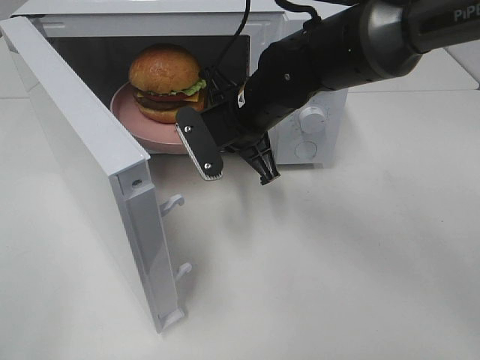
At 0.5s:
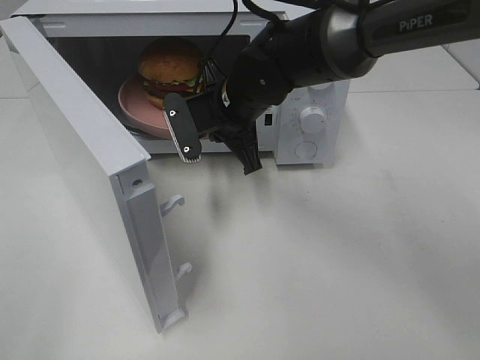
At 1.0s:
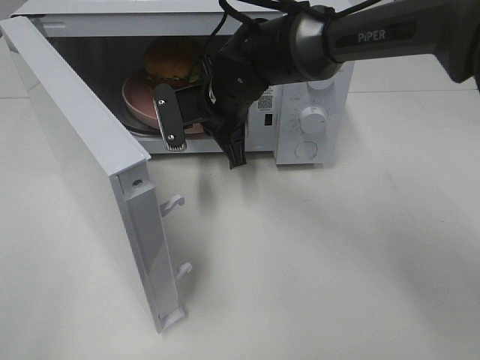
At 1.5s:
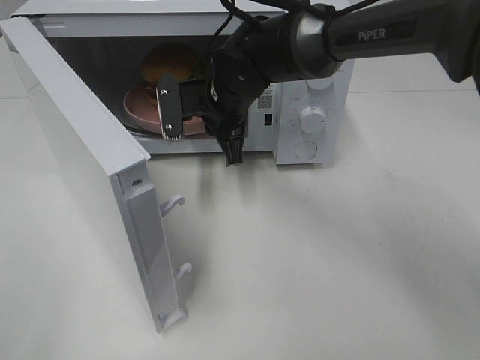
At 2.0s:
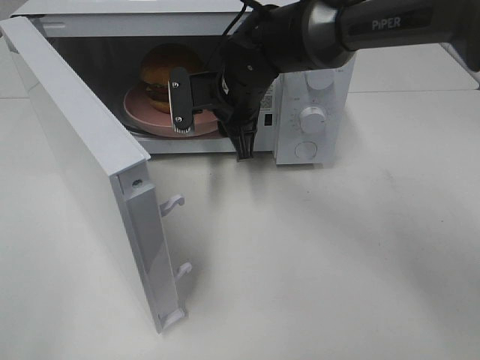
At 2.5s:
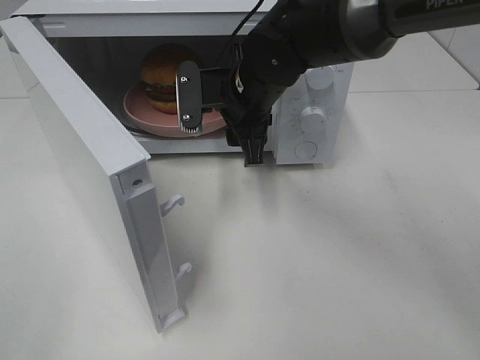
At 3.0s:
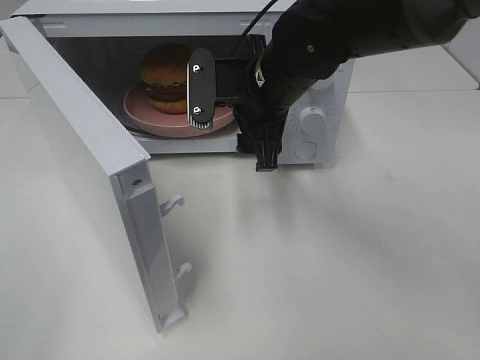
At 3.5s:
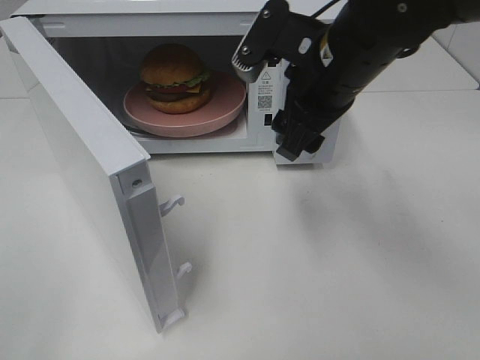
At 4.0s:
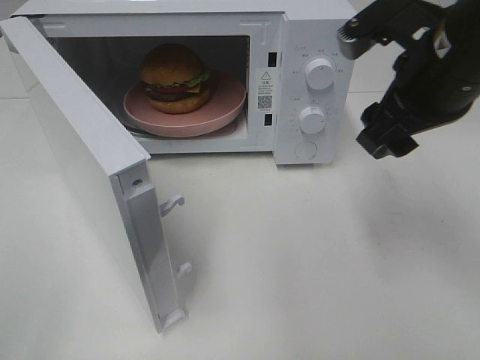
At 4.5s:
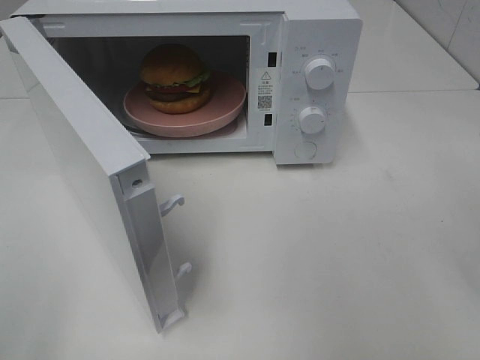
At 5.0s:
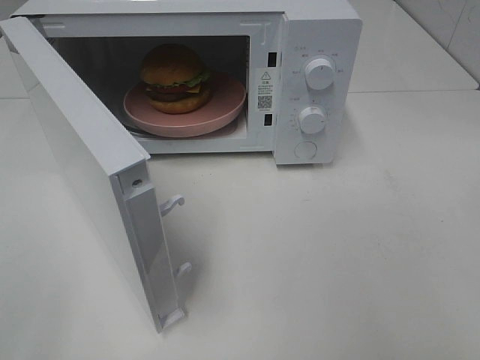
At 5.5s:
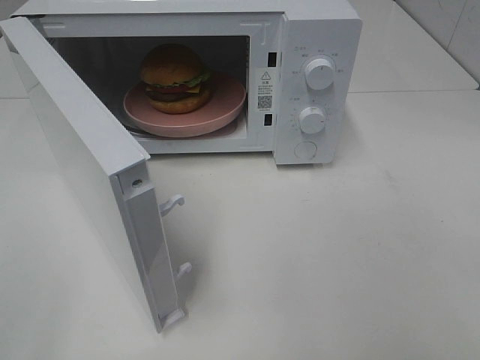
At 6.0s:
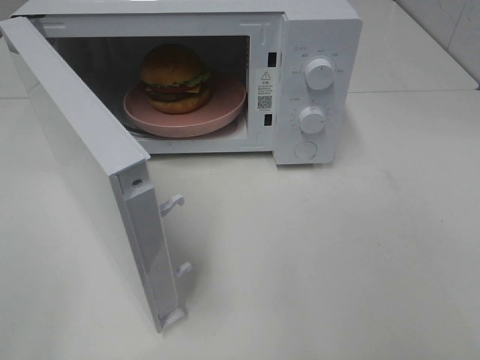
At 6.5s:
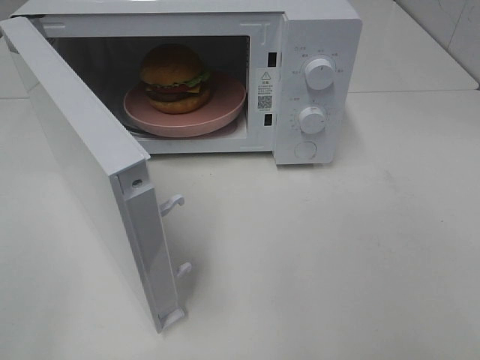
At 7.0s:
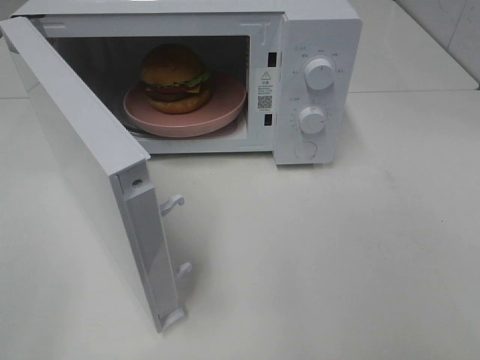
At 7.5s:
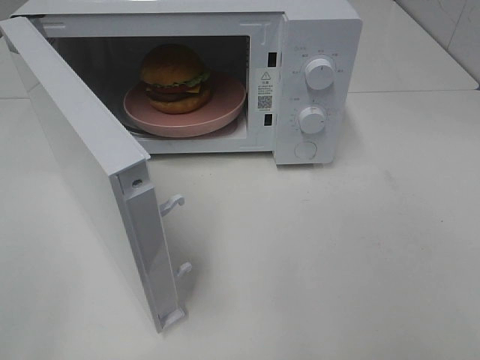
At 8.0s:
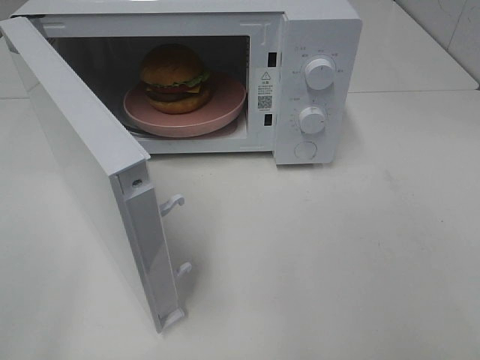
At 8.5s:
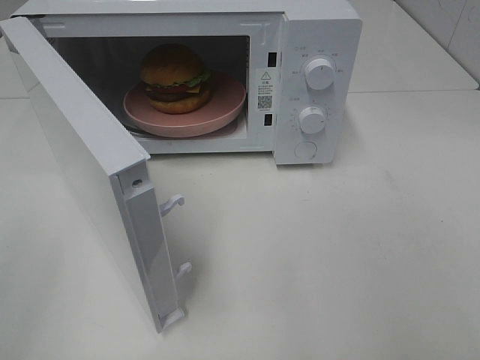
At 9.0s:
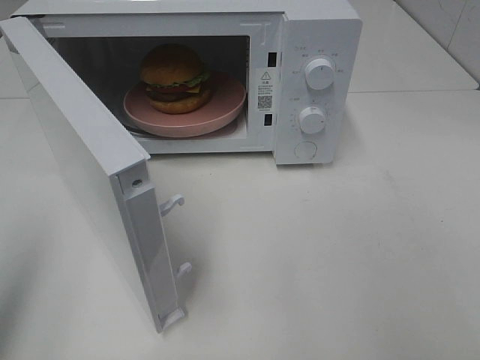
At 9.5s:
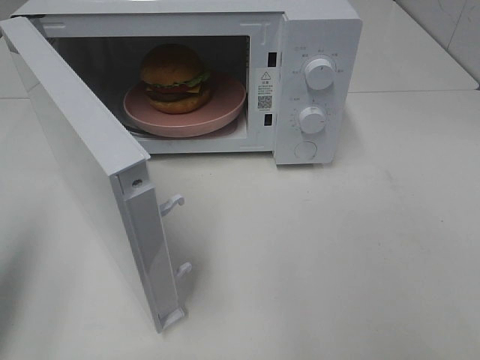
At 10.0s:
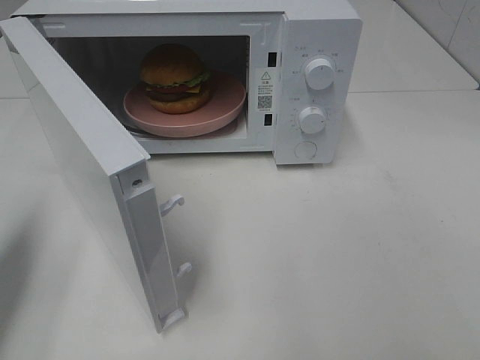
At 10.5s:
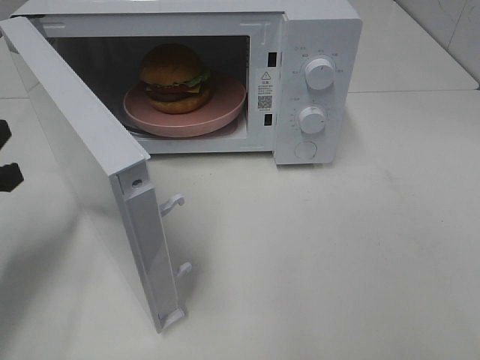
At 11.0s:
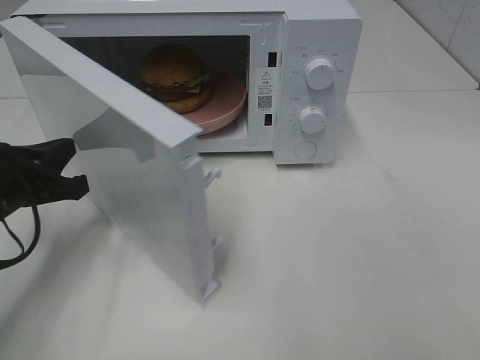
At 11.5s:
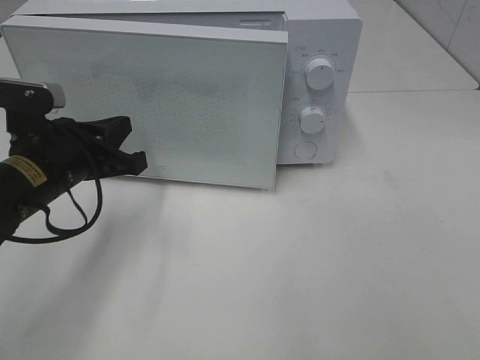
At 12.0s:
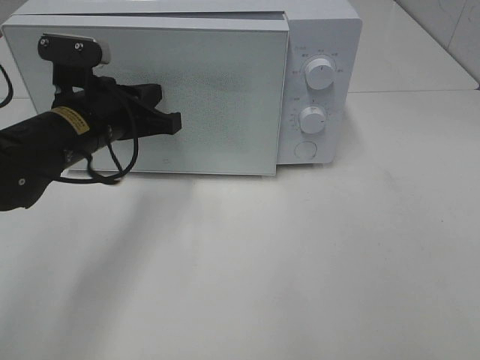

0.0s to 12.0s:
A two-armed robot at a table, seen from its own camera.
Task of the whole recording: Heat the burger.
Step, 0.0s to 2.0s: Right hand: place the plate in the microwave.
0.0s to 2.0s: The right gripper ends up roughly 5 cm from where it was, and opens its fingers.
2.0s to 4.0s: The right gripper goes roughly 25 cm to the right, backward and upward.
4.0s to 6.0s: The right gripper goes some 30 cm backward and to the right.
8.0s to 10.0s: The left gripper heads forward and downward, covering some 20 cm, and closes its fingers.
10.0s to 12.0s: The left gripper moves to the right and forward, approximately 20 cm.

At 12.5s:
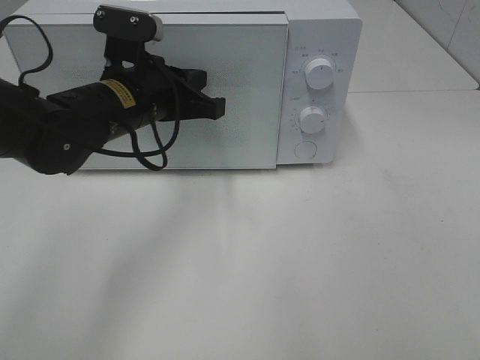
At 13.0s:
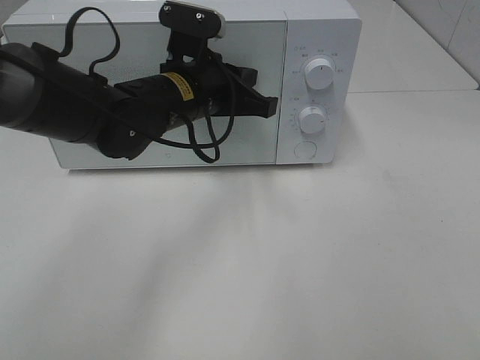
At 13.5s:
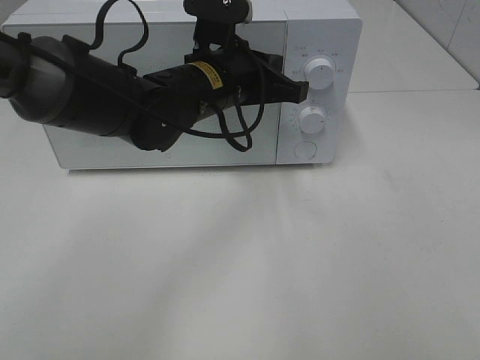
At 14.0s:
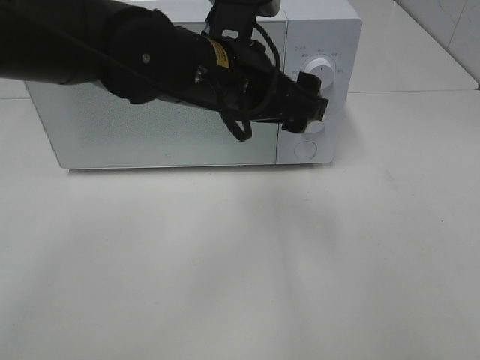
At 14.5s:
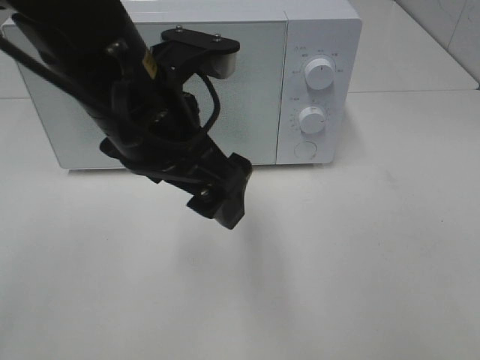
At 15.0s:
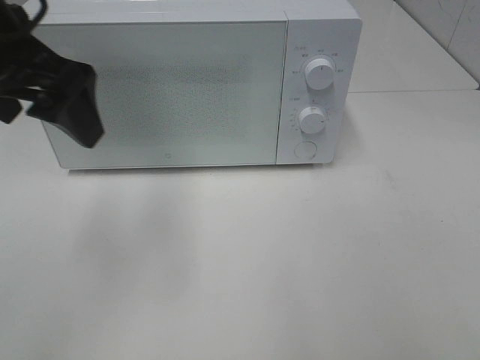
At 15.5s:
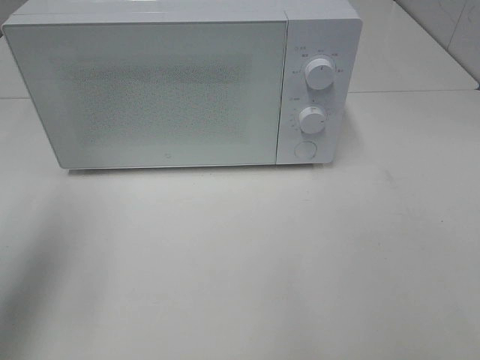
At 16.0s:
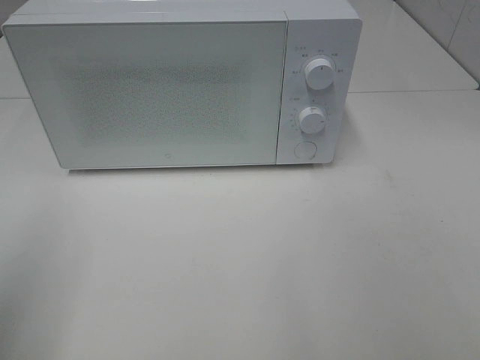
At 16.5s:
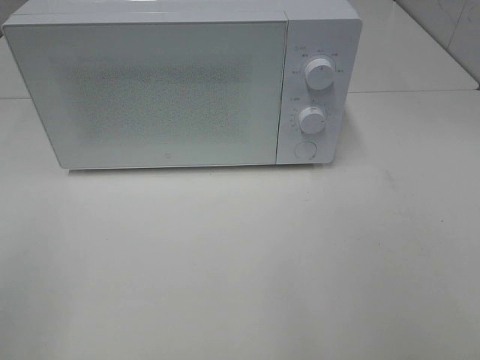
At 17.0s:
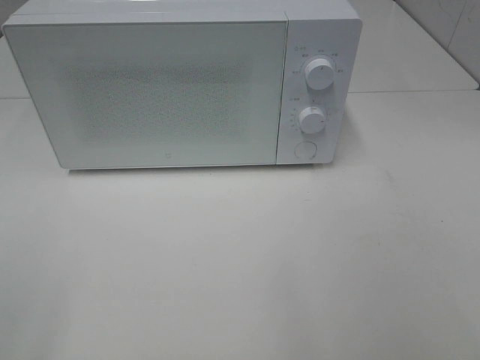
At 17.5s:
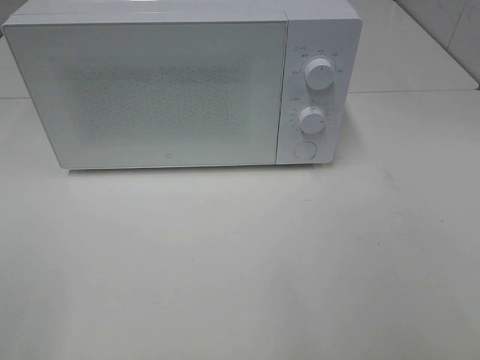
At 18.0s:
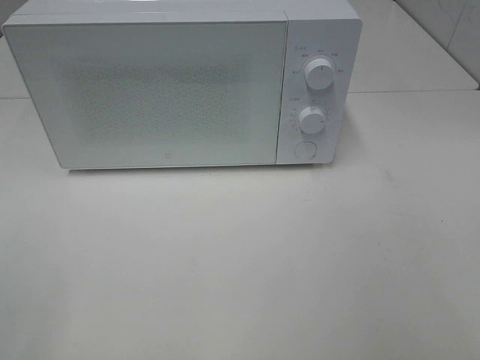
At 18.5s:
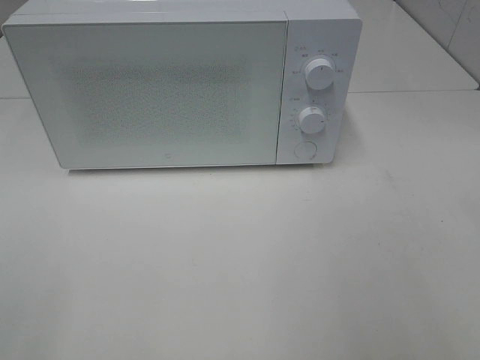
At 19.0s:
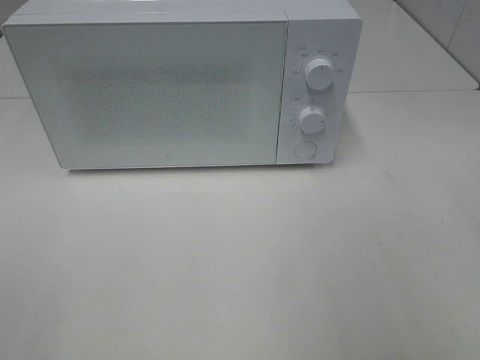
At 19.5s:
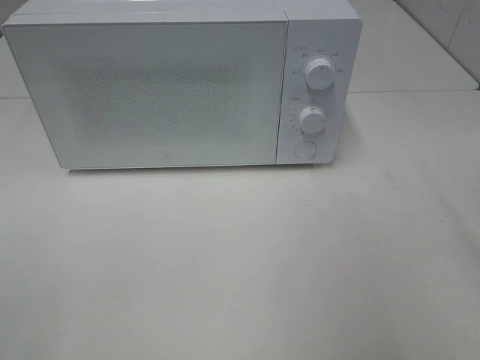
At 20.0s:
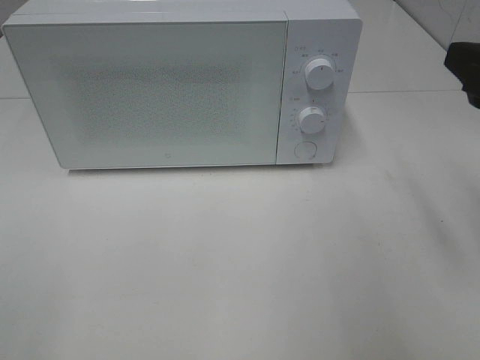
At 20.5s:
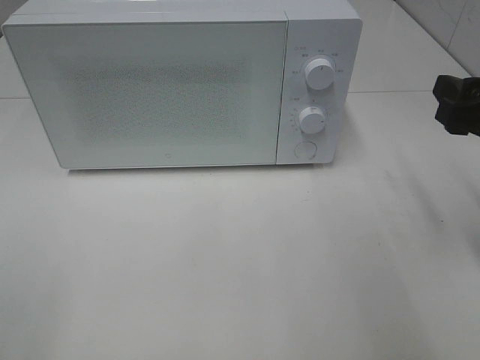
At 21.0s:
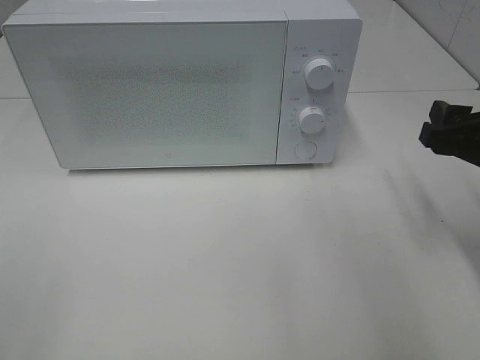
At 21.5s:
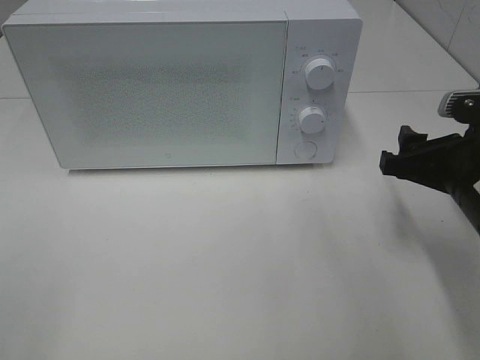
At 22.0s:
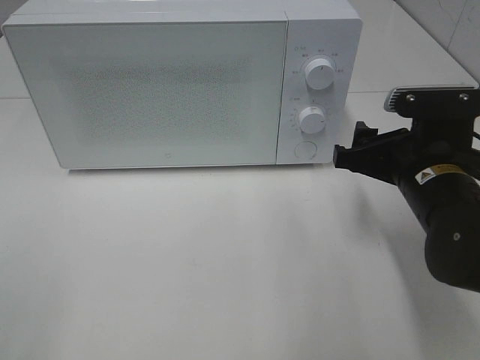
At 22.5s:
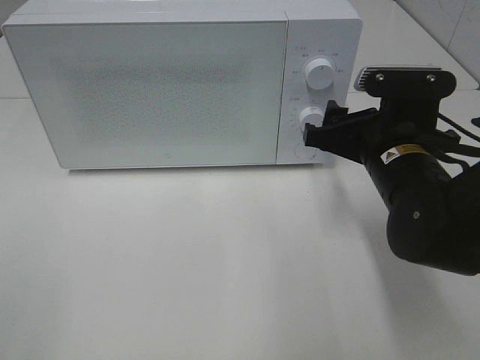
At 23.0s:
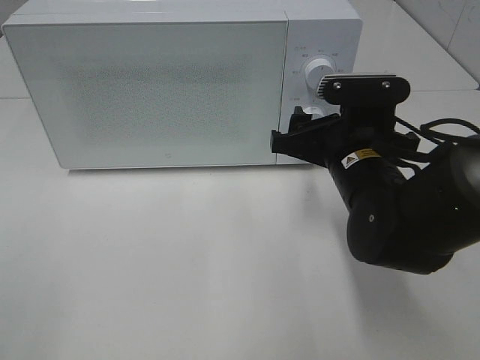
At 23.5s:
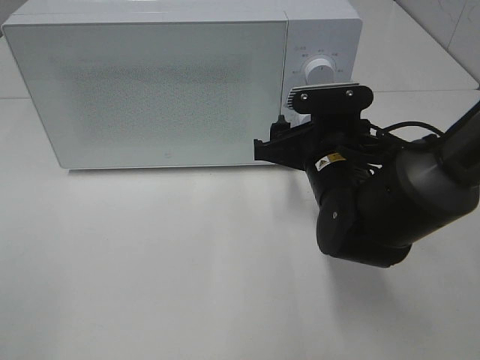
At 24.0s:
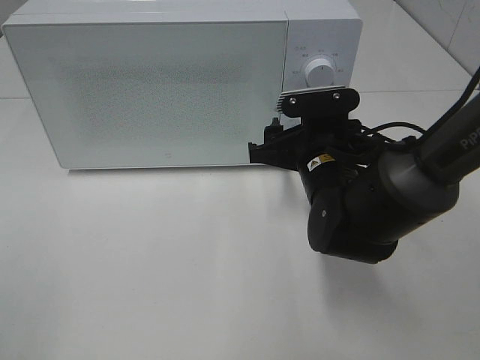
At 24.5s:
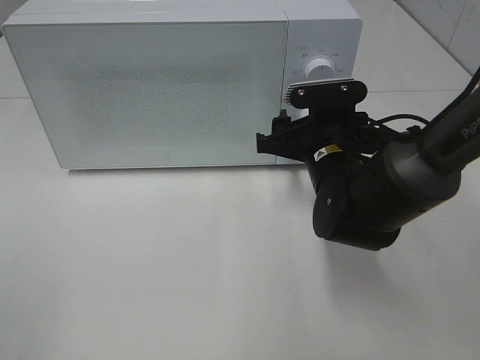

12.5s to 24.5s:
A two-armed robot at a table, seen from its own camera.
Task of the whole recording: Heat the burger.
12.5s to 14.5s: The left gripper shifts approximately 15 cm backward and upward, and opens up.
14.5s to 16.5s: The left gripper moves to the left and backward, some 30 cm.
18.5s to 20.5s: The right gripper travels forward and downward by some 20 cm.
20.5s to 22.5s: The right gripper goes about 15 cm to the left and downward.
22.5s to 24.5s: The right gripper moves forward, about 5 cm.

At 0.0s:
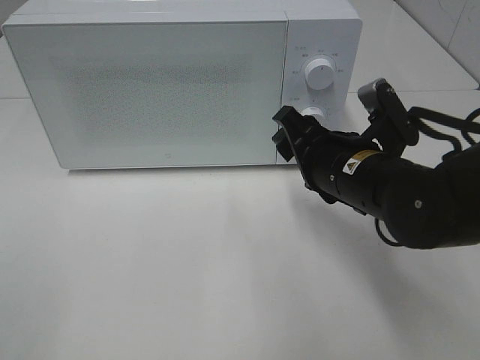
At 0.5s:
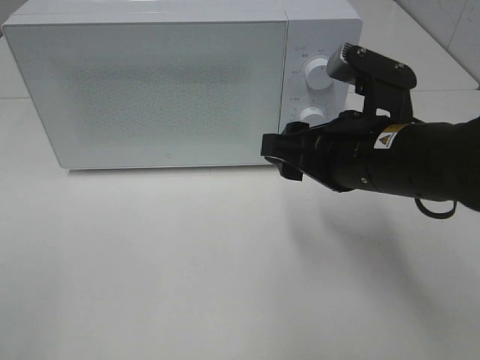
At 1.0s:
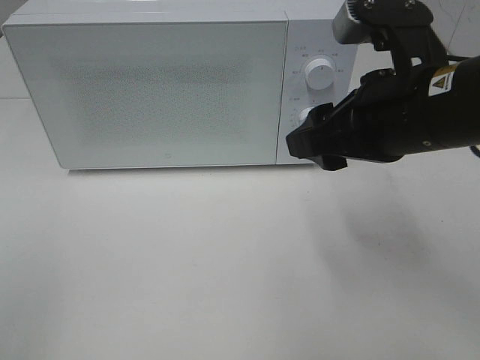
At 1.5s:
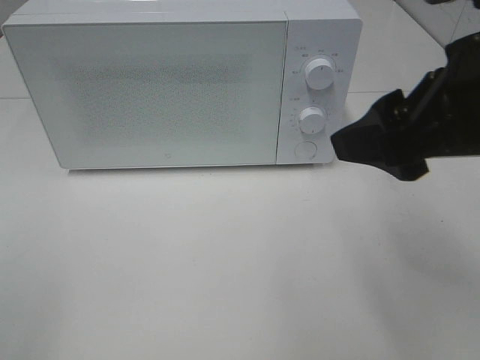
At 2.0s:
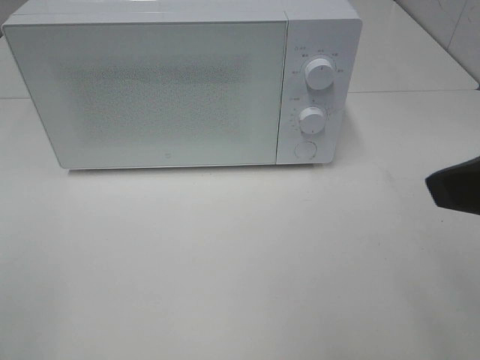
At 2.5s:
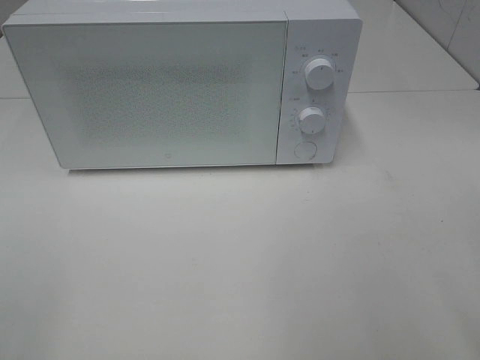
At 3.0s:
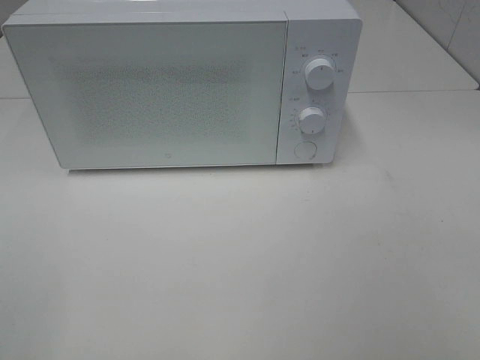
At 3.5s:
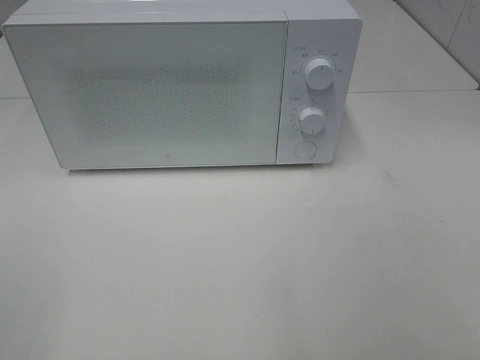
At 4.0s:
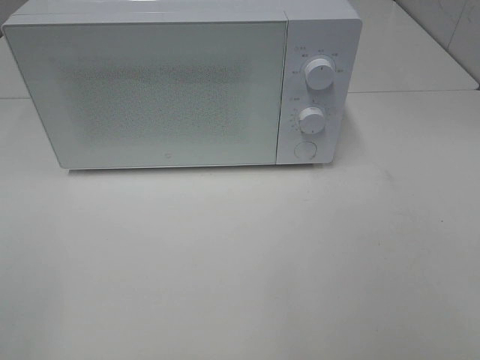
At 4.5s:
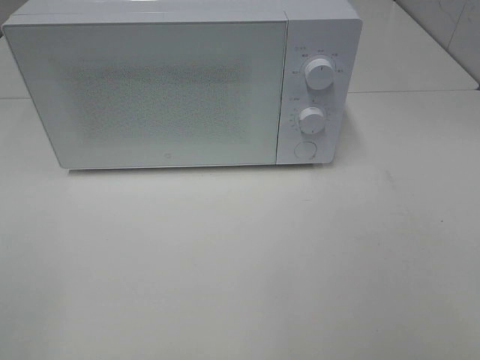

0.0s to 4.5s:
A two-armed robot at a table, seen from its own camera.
Task of the whole recording: Heat the burger.
0.0s to 2.0s: The right gripper heads upward, backward and to the right, covering approximately 25 cm.
2.0s to 4.5s: The right gripper shifts roughly 15 cm backward and to the right.
